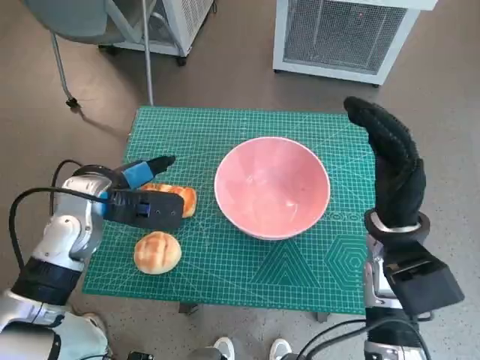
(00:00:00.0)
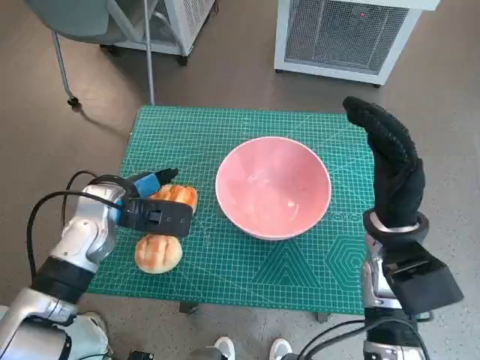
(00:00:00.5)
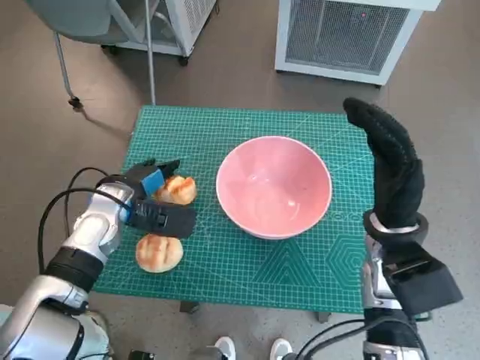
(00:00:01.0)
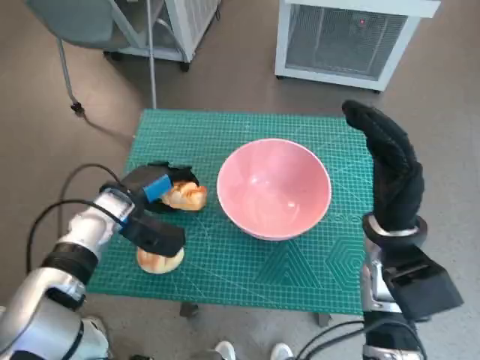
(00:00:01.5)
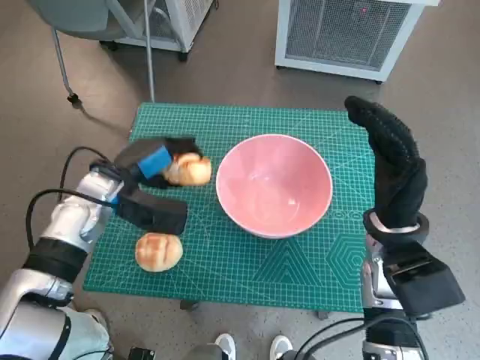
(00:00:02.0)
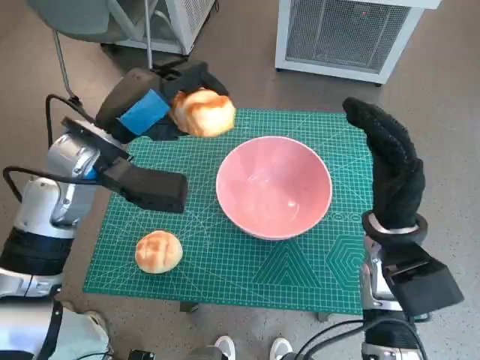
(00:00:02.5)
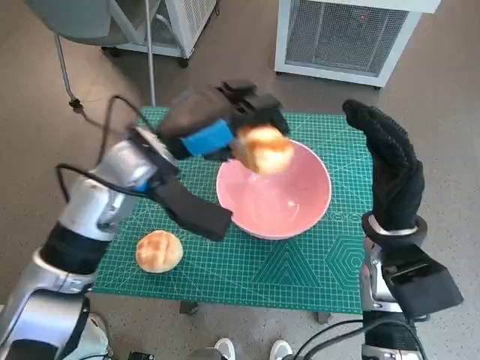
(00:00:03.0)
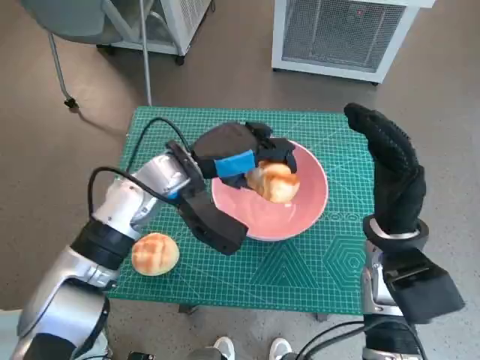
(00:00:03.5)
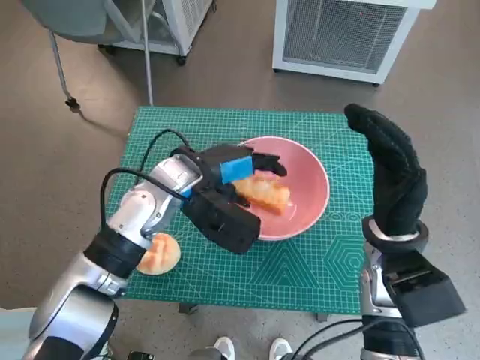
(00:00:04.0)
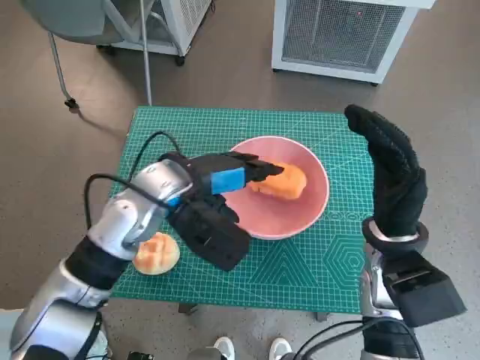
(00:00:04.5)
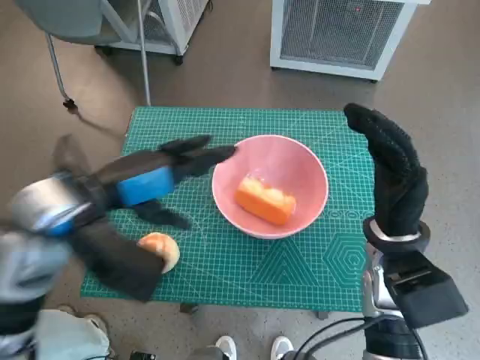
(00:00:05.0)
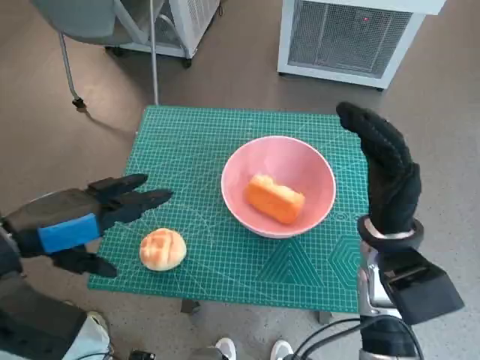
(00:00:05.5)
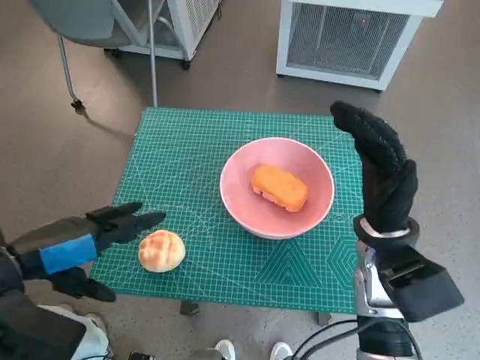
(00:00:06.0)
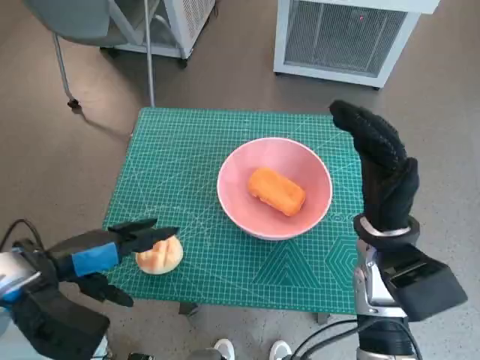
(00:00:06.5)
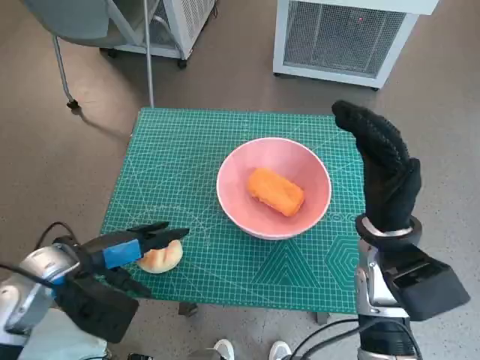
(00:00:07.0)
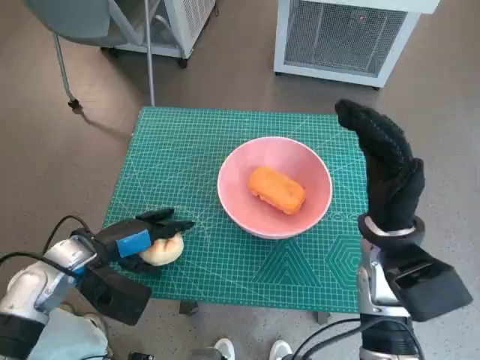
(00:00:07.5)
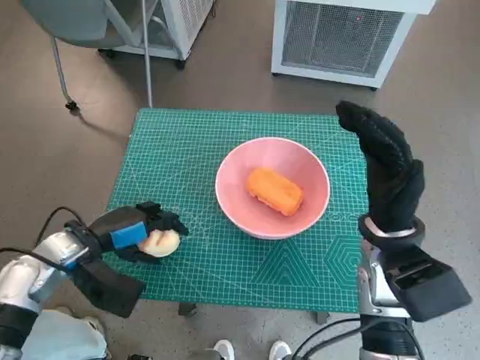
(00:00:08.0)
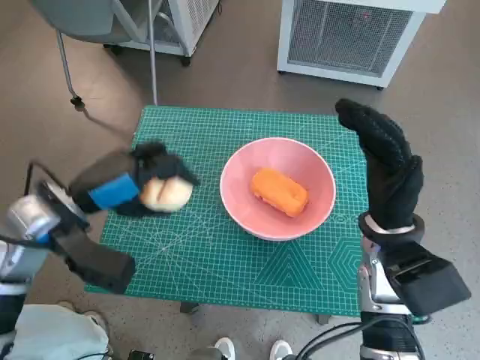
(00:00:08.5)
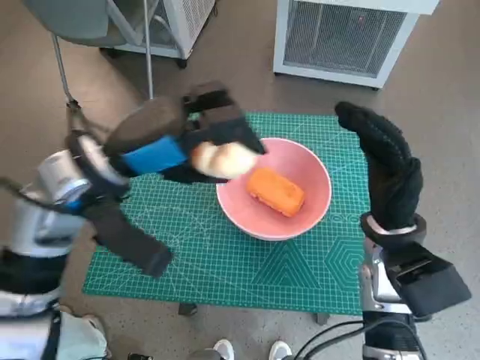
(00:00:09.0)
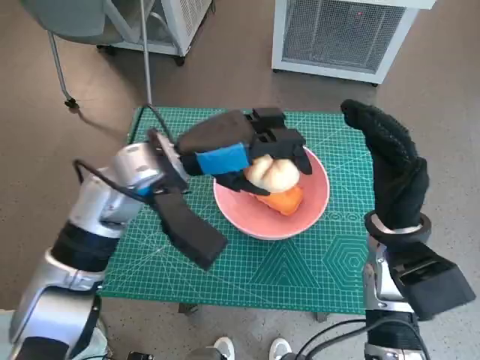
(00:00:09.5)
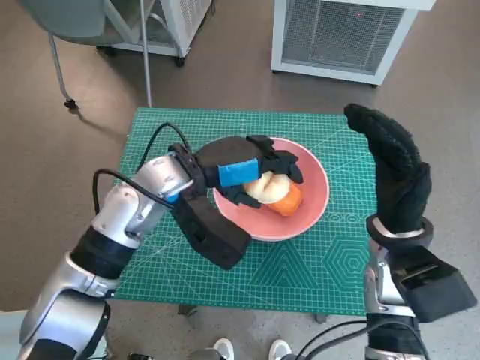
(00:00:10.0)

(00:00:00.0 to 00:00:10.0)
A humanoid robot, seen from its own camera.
Task of the whole recording: Push the bowl to the center of the table and put the bread into the bowl.
Step, 00:00:02.0 - 00:00:04.5: Place the long bread in pink bowl with left hand.
Step, 00:00:05.0 - 00:00:07.5: Grasp the round bread with left hand.
00:00:02.0 - 00:00:04.0: The left hand heads to the right, covering some 10 cm.
00:00:04.0 - 00:00:06.0: The left hand goes some 20 cm to the left and backward.
00:00:06.0 - 00:00:08.0: The left hand is displaced downward and forward by approximately 15 cm.
00:00:08.0 - 00:00:10.0: The left hand travels to the right, upward and forward by roughly 20 cm.

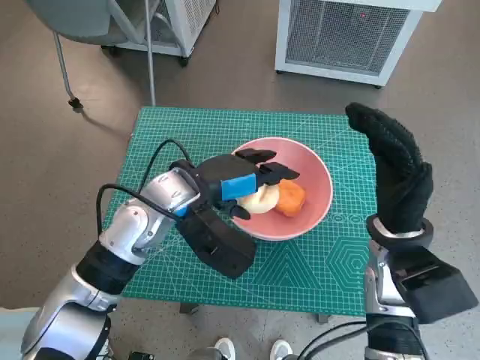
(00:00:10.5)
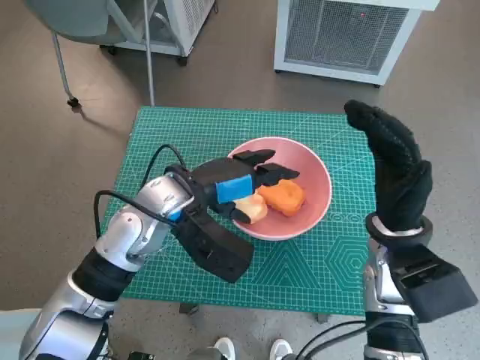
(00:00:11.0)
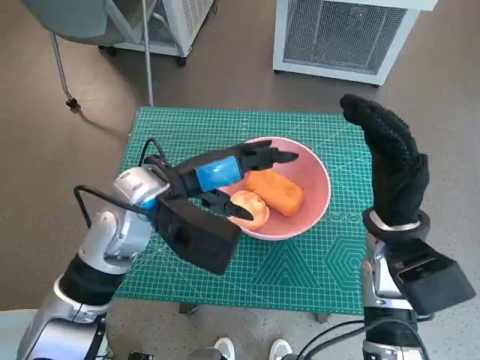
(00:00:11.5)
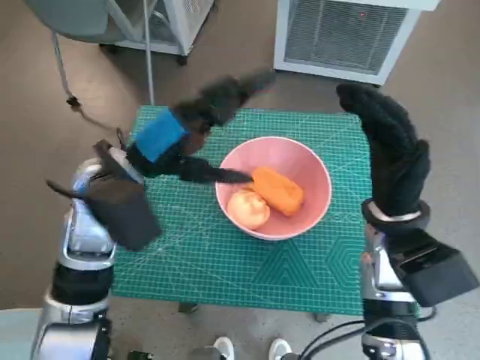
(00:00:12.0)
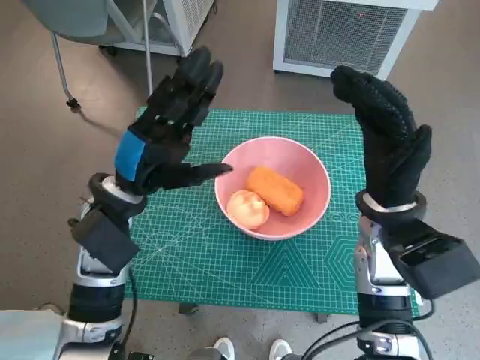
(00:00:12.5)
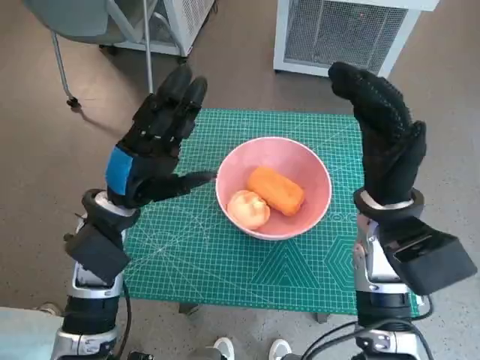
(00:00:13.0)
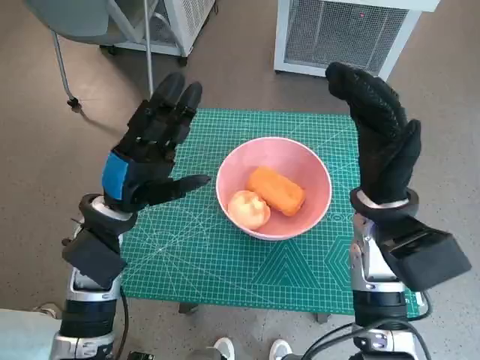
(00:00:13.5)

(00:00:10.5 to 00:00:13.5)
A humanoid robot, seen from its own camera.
Task of the whole recording: Push the bowl to the center of the table and put the bread into the bowl.
00:00:10.5 - 00:00:12.0: The left hand is displaced to the left by about 5 cm.
00:00:12.0 - 00:00:13.5: The left hand is displaced downward by some 5 cm.

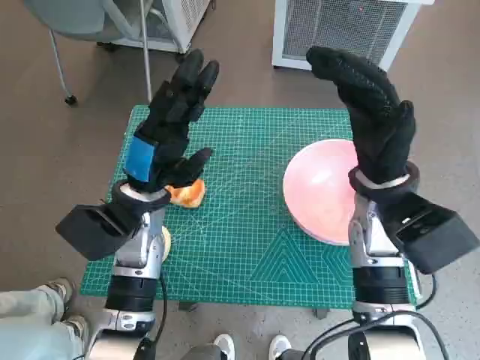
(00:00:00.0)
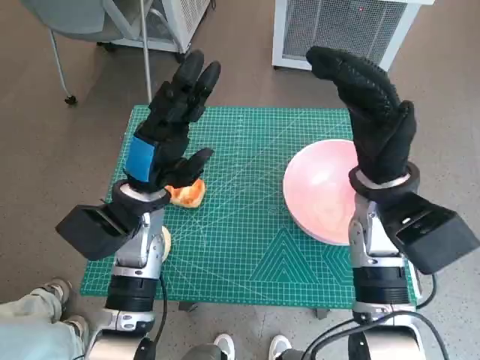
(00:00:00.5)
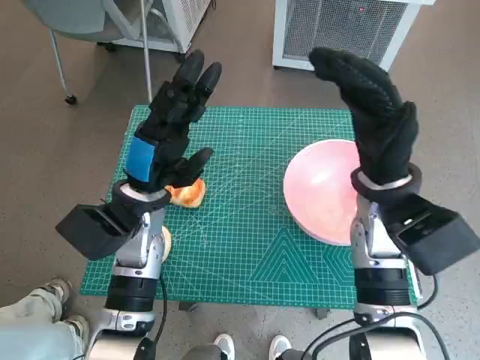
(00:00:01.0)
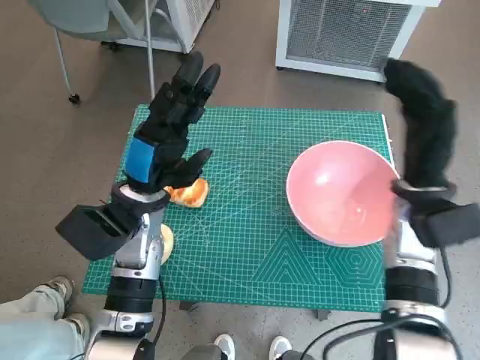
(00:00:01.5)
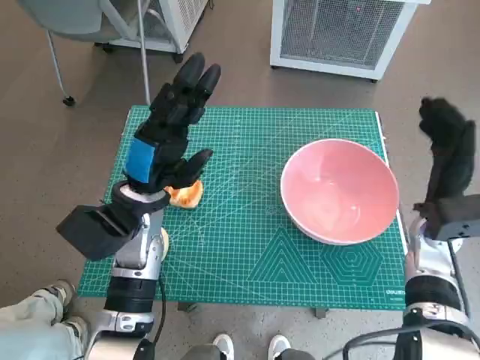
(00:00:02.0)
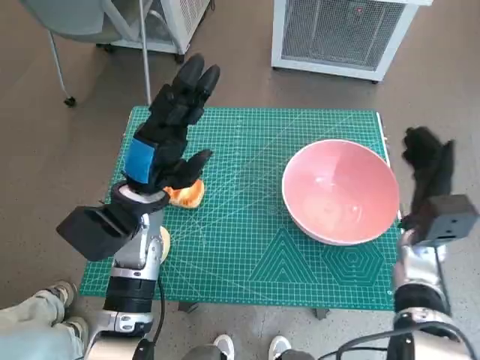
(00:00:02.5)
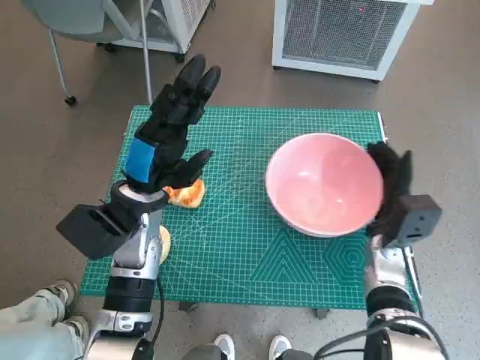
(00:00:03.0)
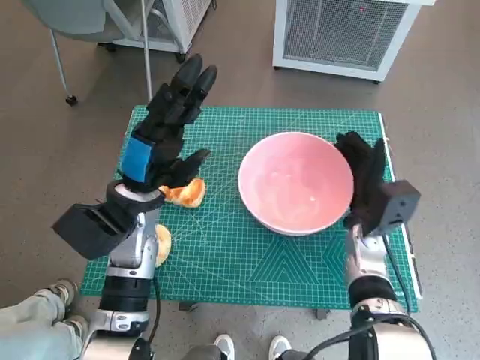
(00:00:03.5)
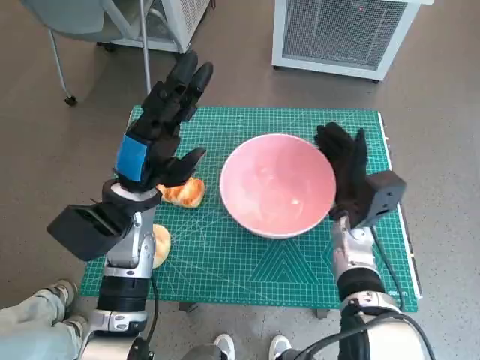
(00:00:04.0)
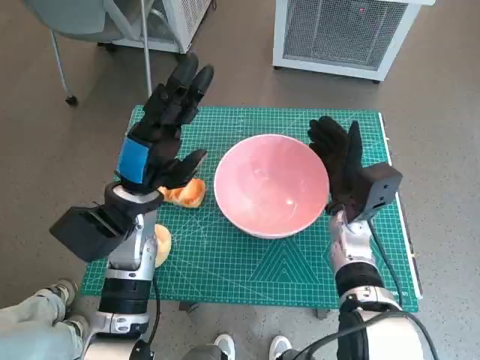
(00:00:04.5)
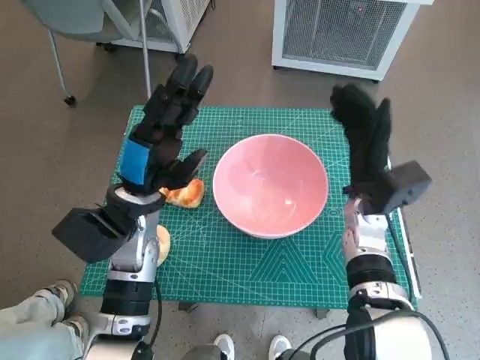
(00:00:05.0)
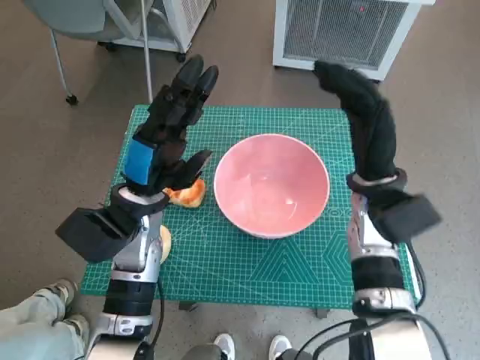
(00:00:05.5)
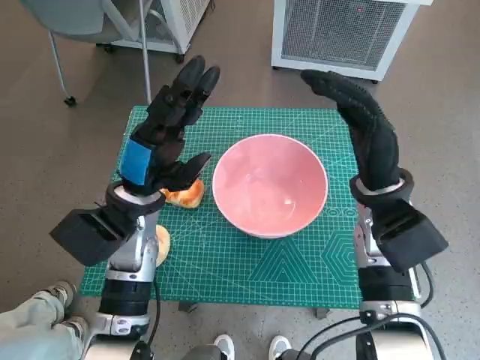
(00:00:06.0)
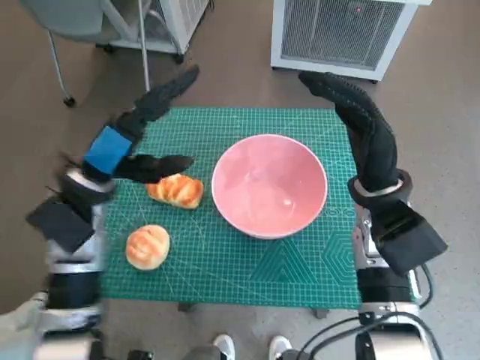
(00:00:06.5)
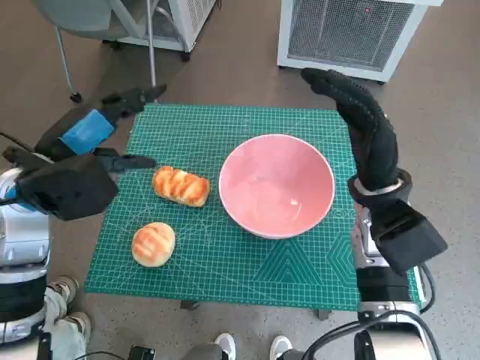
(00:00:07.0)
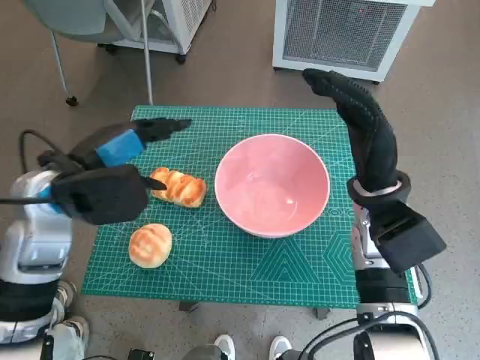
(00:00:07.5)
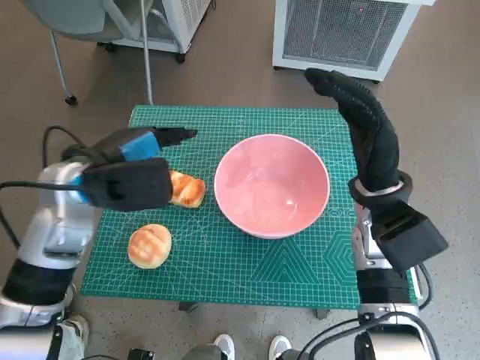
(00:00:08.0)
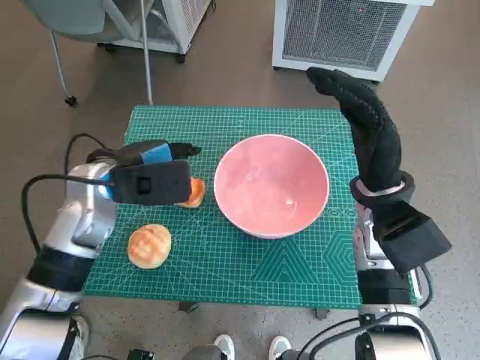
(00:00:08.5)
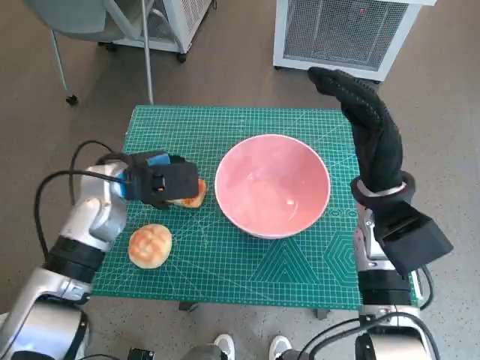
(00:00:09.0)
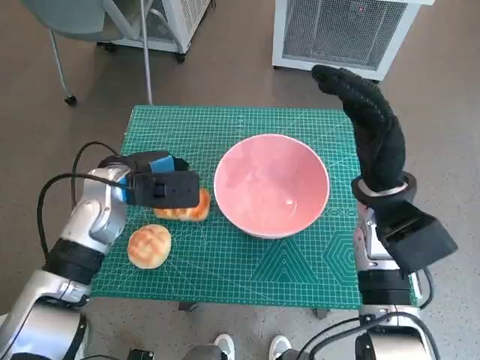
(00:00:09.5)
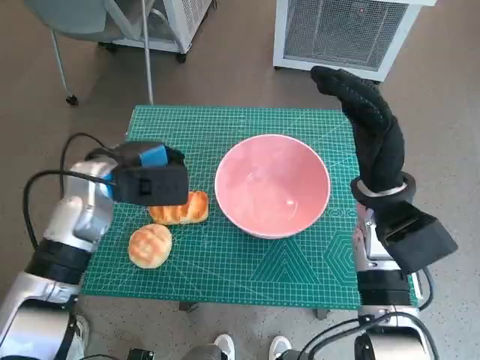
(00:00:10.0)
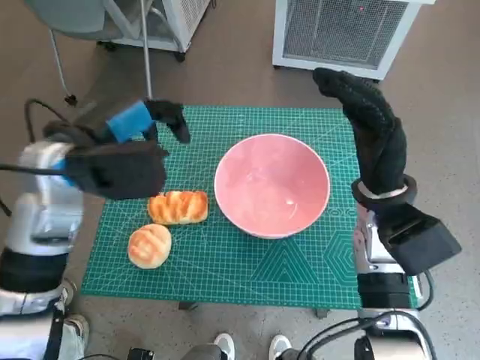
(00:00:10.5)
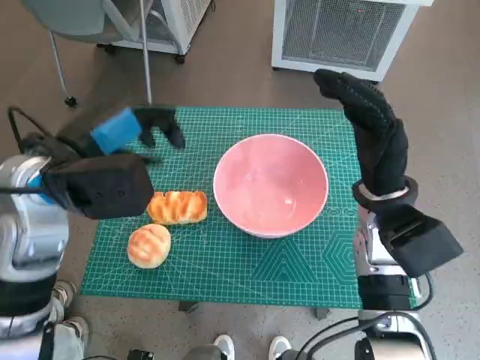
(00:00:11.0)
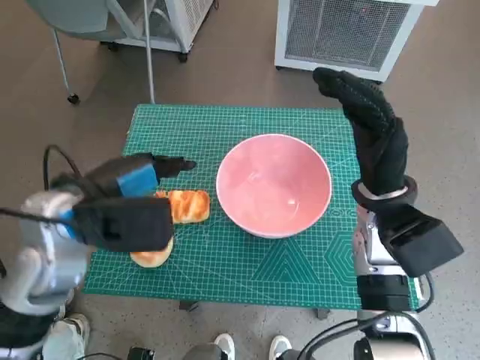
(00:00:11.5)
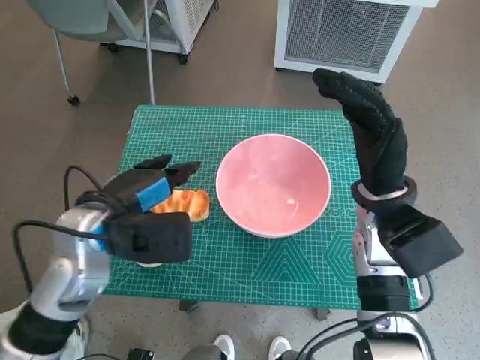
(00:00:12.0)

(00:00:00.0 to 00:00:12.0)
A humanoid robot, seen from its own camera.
Task of the whole recording: Push the bowl to the center of the table and put the bread into the bowl.
Step, 00:00:00.0 - 00:00:04.5: Move the pink bowl to the center of table with right hand.
00:00:02.0 - 00:00:04.0: The right hand goes approximately 10 cm to the left.
00:00:04.0 - 00:00:06.0: The right hand moves upward, roughly 10 cm.
00:00:06.0 - 00:00:08.0: The left hand is displaced upward by some 5 cm.
00:00:08.0 - 00:00:10.0: The left hand changes place by roughly 5 cm.
00:00:10.0 - 00:00:12.0: The left hand goes about 5 cm backward, and travels upward and back again, roughly 10 cm each way.
